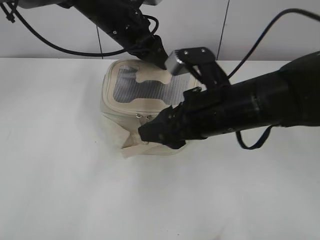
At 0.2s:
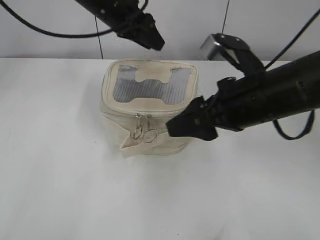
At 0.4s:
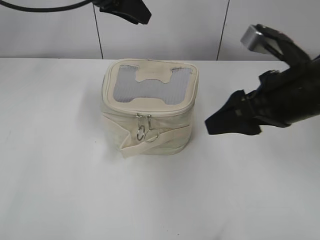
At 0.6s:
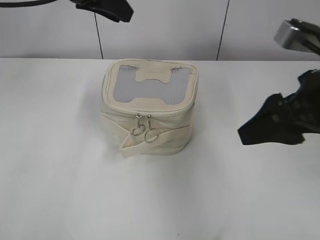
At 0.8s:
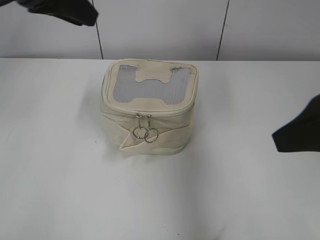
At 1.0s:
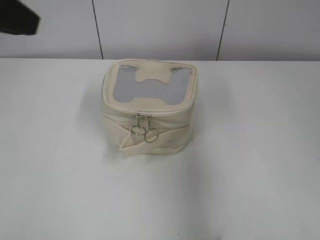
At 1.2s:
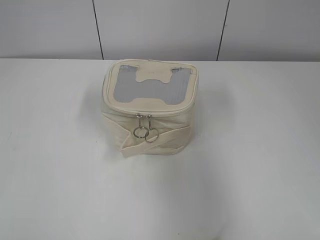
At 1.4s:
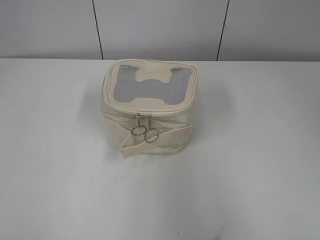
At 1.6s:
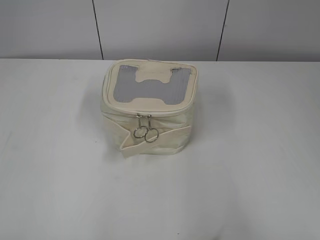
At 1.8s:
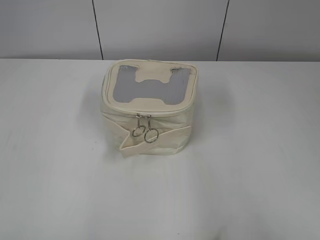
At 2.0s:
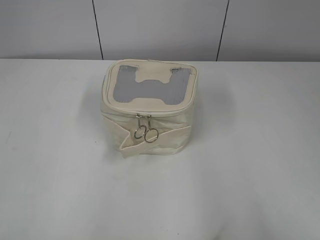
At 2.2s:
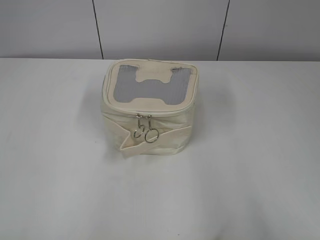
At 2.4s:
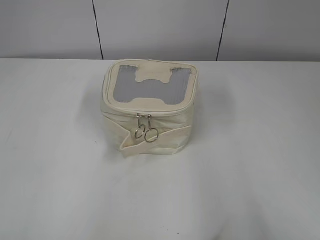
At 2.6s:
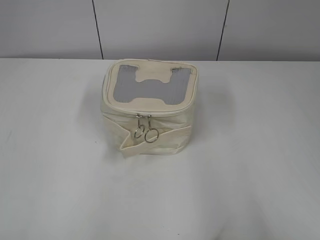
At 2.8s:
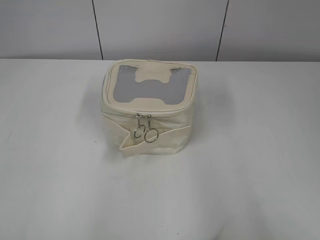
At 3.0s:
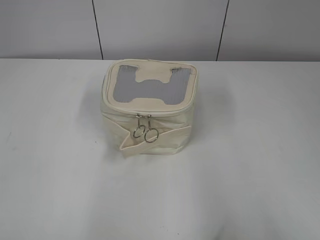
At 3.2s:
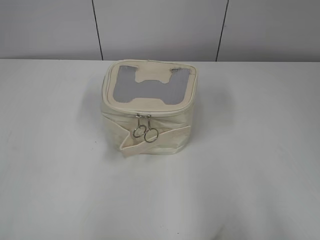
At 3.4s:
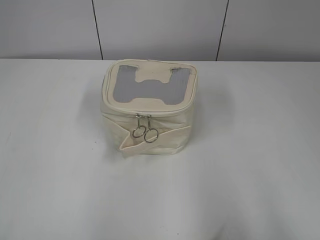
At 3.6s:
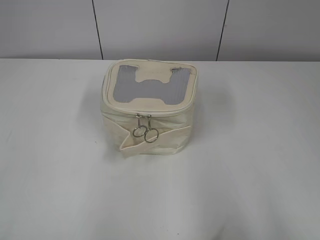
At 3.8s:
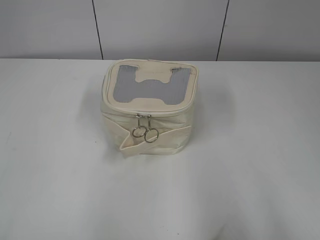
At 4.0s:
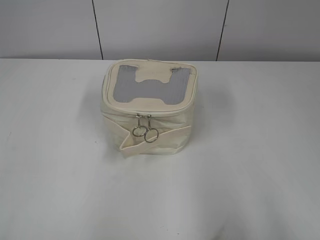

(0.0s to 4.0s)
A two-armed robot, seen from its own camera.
0.0s - 1.4s: The left gripper travels backward and to the left by some 50 cm, while the right gripper shifts some 35 cm backward, to the right and upward.
1.4s - 2.6s: The grippers both shift downward by some 5 cm.

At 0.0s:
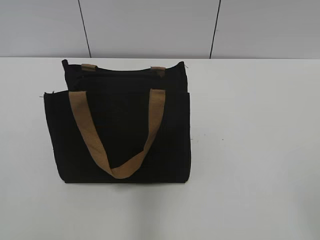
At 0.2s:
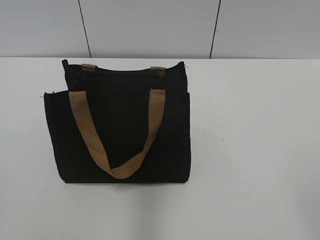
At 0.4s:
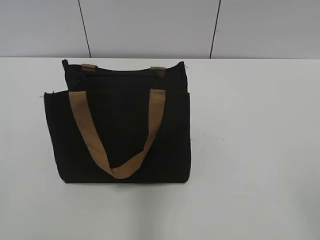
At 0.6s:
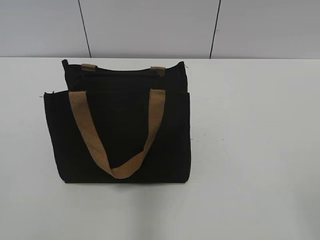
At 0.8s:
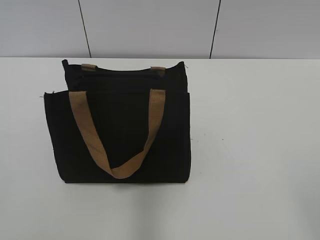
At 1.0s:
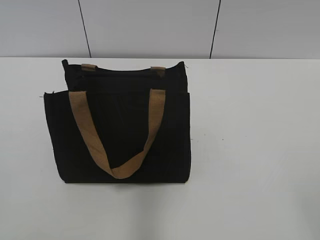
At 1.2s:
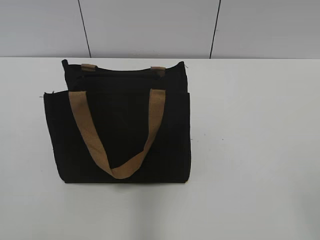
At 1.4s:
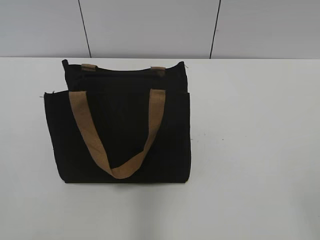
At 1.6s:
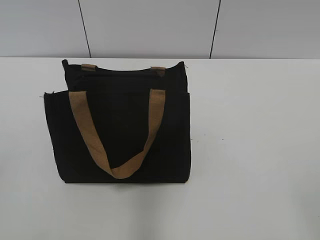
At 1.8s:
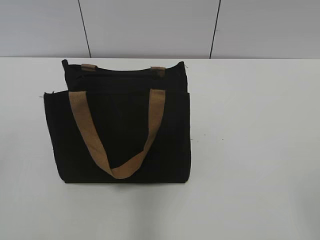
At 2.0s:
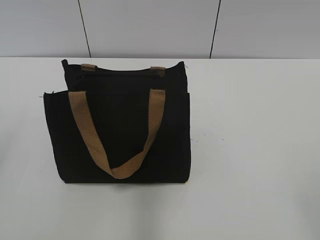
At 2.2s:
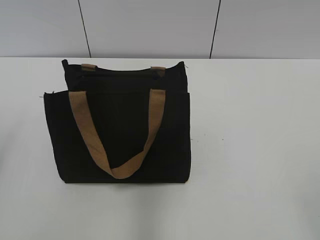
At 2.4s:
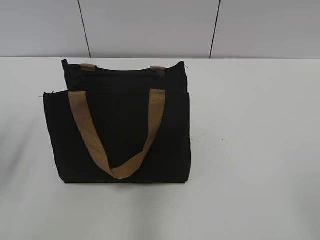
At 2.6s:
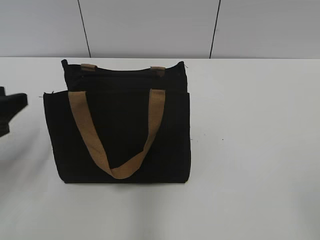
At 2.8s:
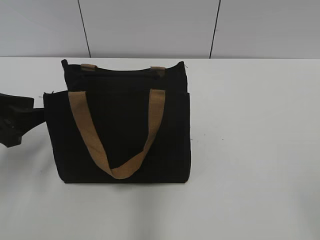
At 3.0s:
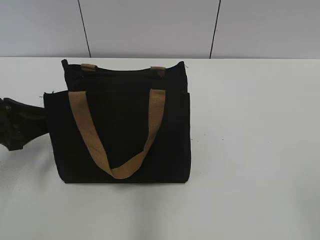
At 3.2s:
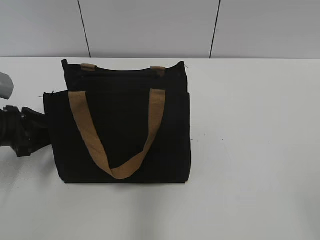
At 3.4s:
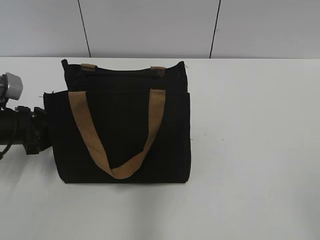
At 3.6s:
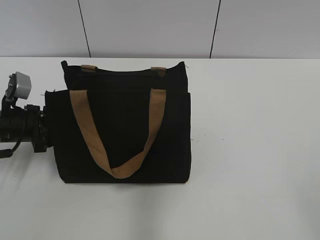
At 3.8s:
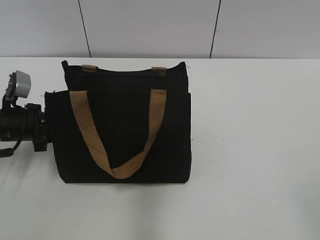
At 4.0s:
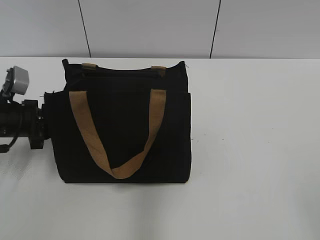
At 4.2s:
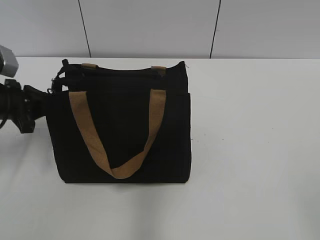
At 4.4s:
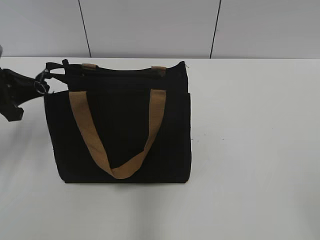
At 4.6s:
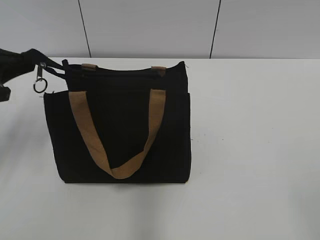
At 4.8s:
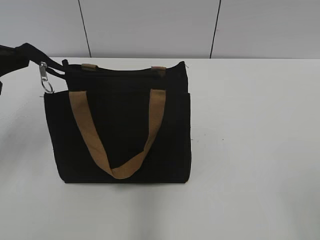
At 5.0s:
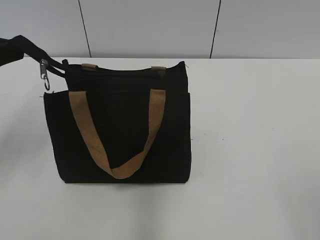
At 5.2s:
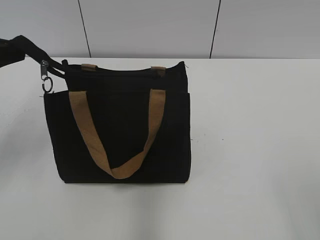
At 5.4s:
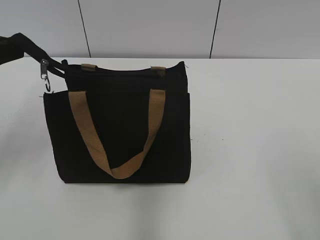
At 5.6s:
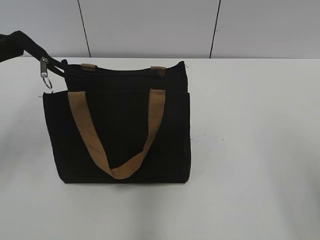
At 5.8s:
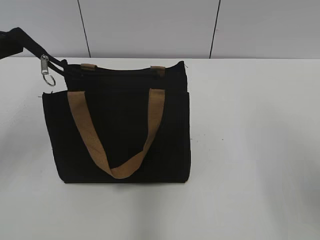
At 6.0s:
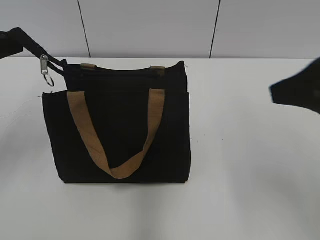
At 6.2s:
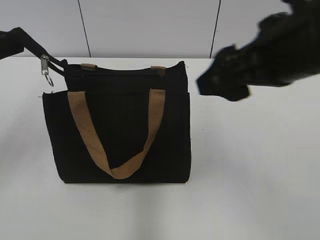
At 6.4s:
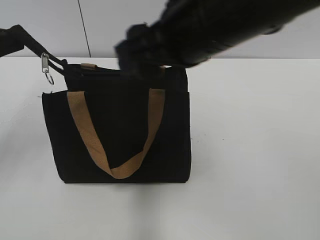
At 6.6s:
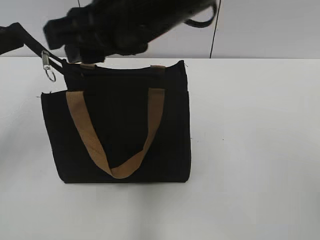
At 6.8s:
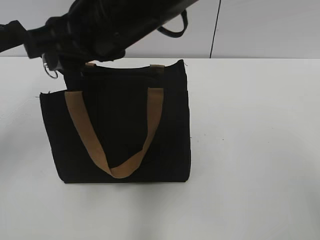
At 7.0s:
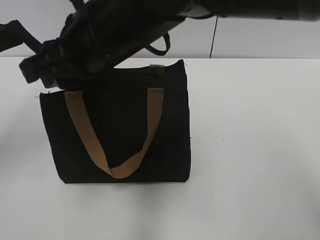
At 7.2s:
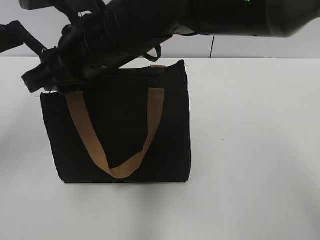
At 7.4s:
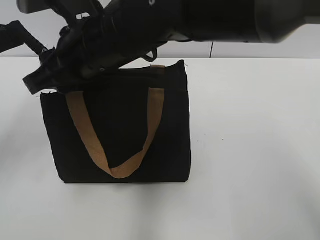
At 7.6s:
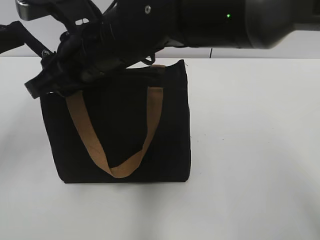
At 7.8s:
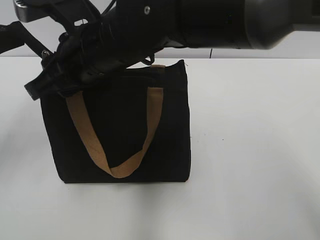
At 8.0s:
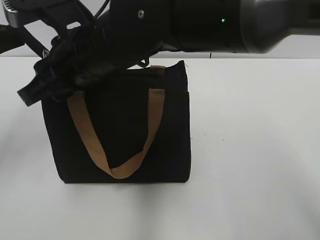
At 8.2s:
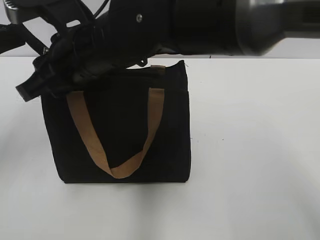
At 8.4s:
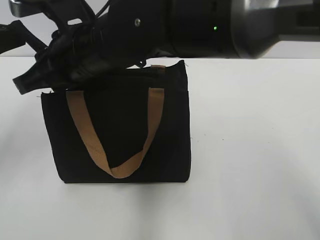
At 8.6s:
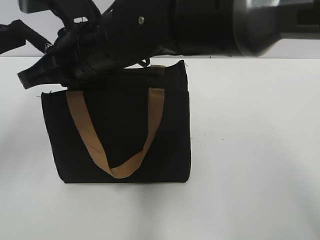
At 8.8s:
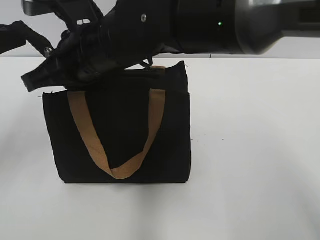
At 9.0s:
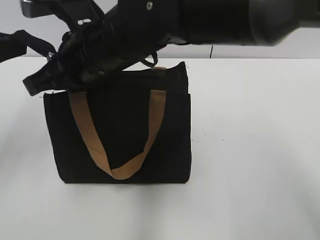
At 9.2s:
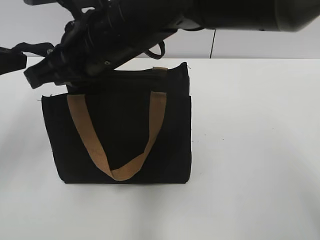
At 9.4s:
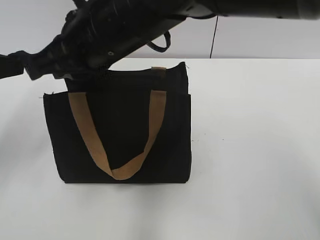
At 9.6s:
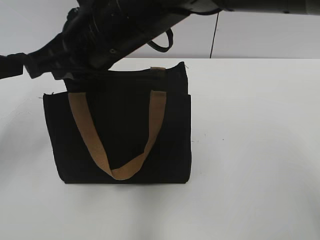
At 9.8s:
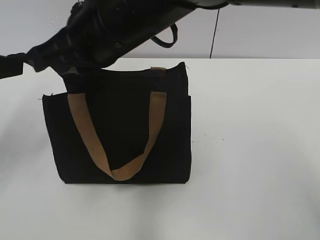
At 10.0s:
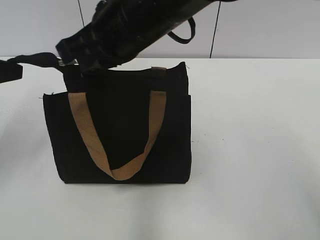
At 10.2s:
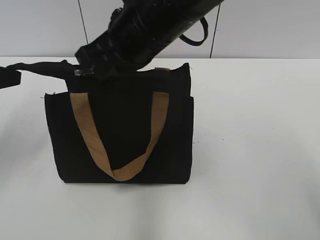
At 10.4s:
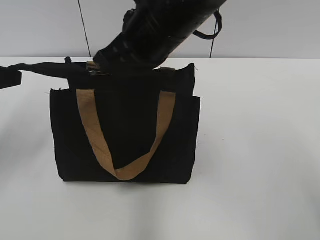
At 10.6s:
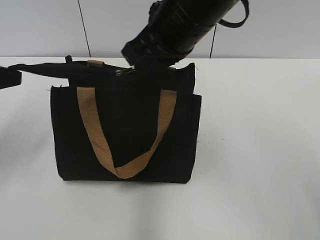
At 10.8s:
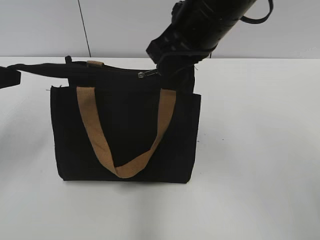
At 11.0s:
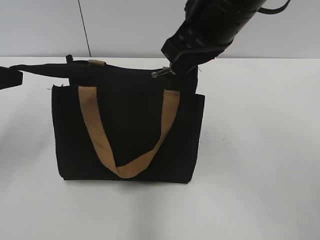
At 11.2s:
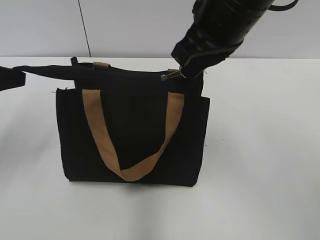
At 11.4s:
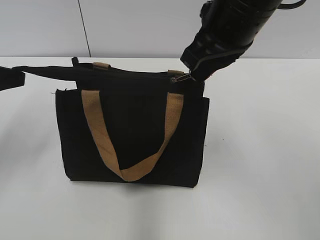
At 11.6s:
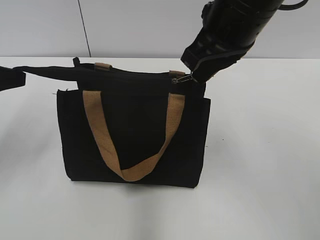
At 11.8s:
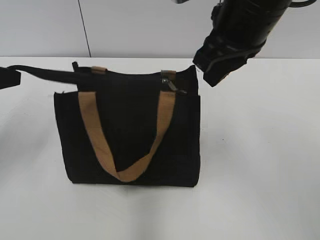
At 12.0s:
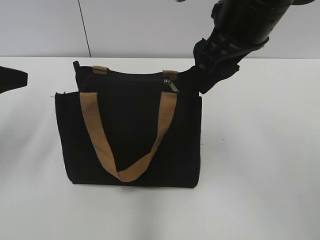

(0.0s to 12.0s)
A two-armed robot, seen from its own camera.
Step, 0.0s - 11.6s: Zip up the bag with your right hand.
1.6s - 3.0s: The left gripper goes some 30 cm forward and downward.
3.0s - 4.4s: The left gripper moves roughly 5 cm downward and comes back, and closes.
4.4s - 6.0s: The right gripper travels forward by about 20 cm. Meanwhile the left gripper goes approximately 10 cm upward.
6.0s - 7.6s: The right gripper is displaced to the left by some 30 cm, and closes its fingers.
7.6s - 9.0s: The right gripper closes up.
9.0s - 10.4s: The right gripper is displaced to the right by roughly 5 cm.
10.4s - 12.0s: The right gripper is displaced to the right by approximately 10 cm, and opens. Meanwhile the left gripper opens.

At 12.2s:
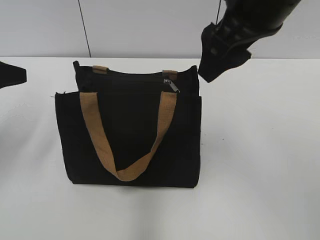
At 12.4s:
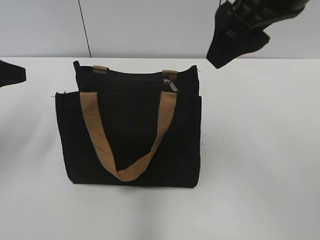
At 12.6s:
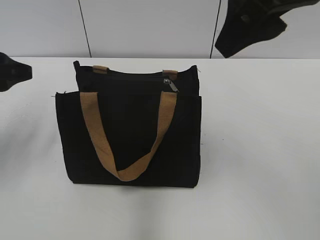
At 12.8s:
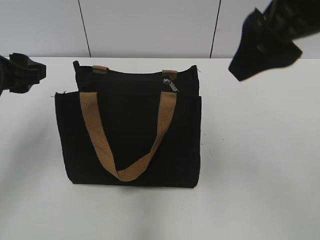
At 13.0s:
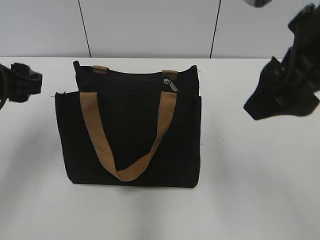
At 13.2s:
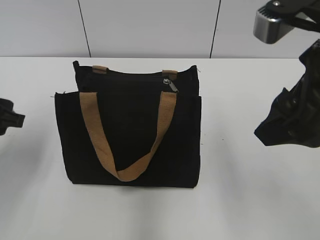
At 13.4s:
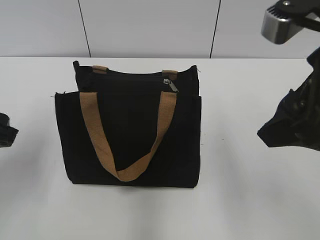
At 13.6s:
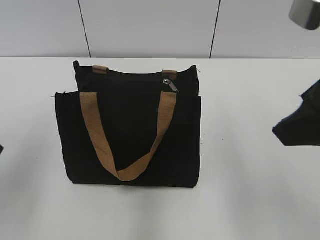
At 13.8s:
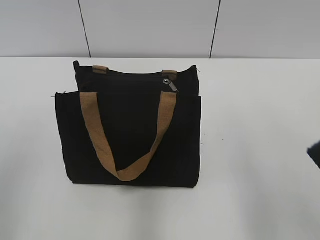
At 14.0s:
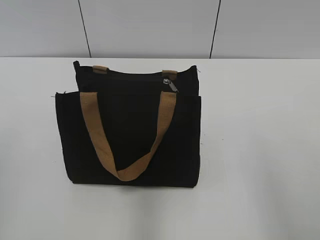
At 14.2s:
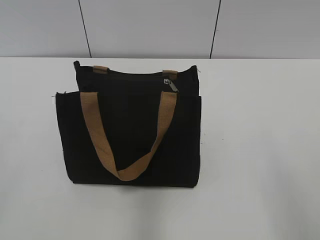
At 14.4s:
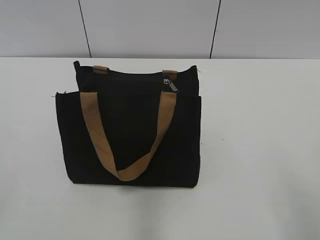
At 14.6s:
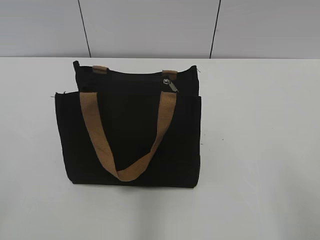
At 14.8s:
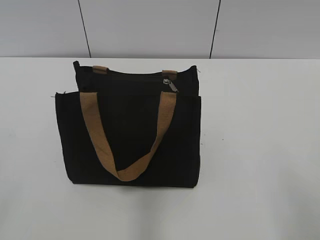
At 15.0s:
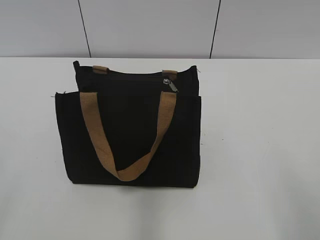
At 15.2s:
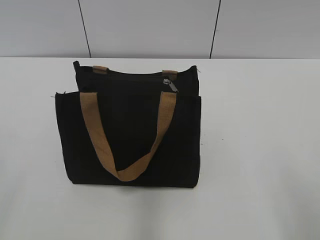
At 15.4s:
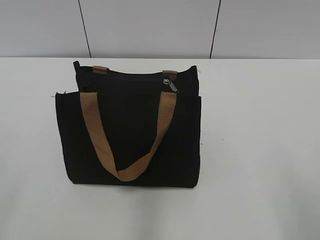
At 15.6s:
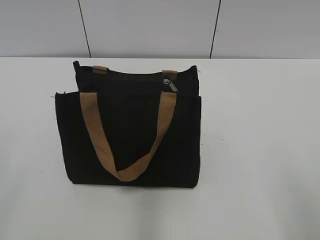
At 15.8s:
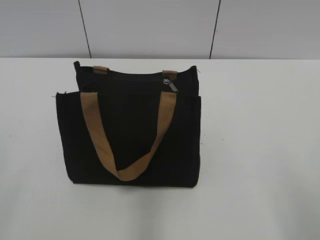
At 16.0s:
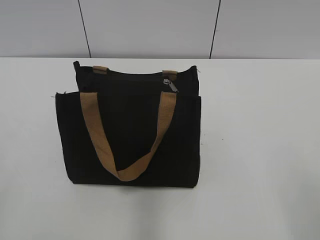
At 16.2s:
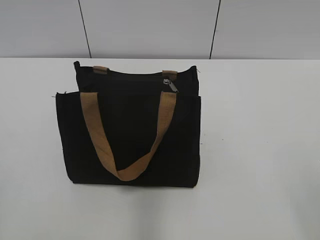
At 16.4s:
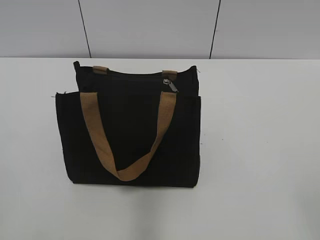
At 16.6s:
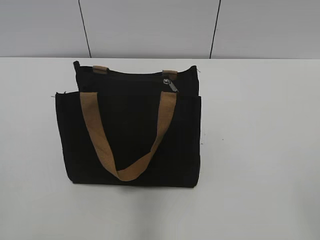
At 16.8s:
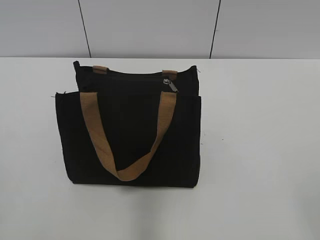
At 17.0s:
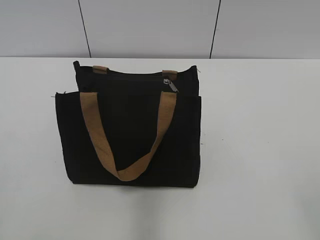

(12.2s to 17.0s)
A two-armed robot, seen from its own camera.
12.2s - 13.8s: The right gripper heads backward and to the right, covering approximately 15 cm; the left gripper heads backward, covering approximately 15 cm.

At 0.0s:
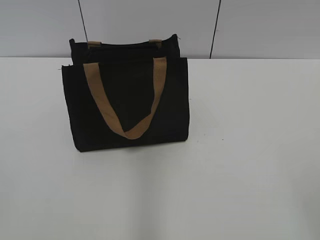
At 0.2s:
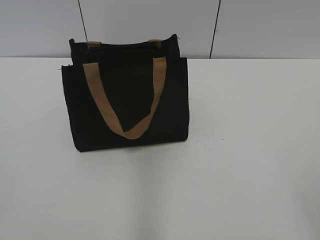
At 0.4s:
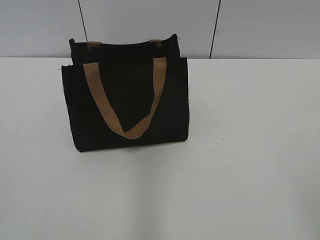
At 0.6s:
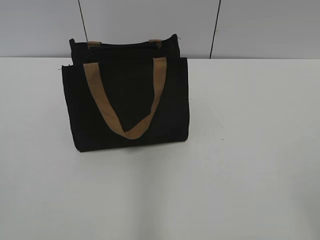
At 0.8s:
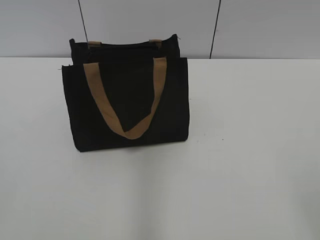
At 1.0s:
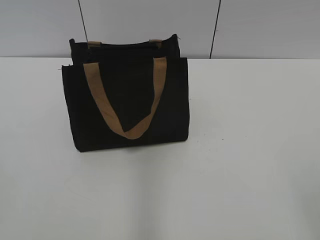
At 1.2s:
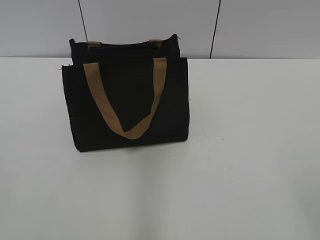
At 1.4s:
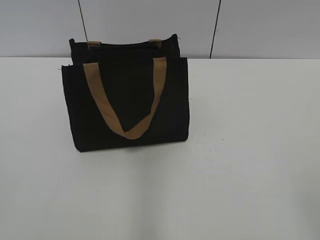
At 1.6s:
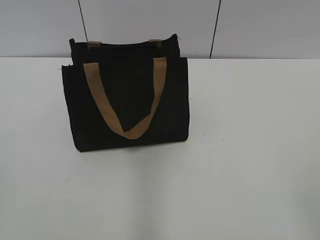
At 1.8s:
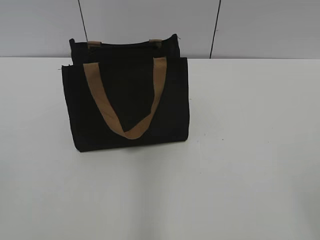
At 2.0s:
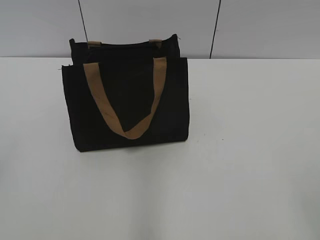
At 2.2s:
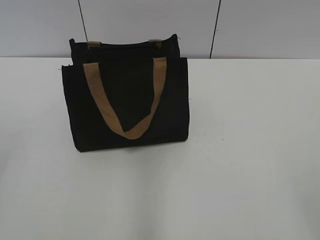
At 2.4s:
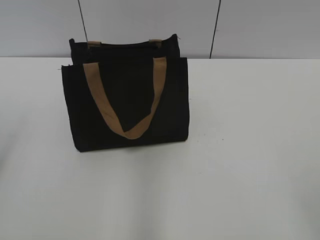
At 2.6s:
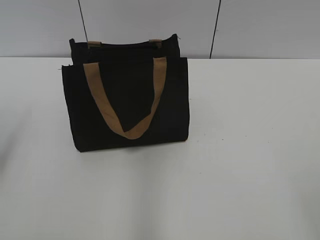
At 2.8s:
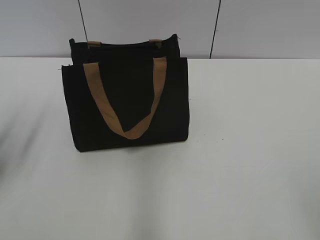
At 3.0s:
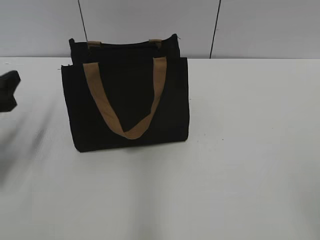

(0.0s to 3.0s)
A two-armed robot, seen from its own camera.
1.6s - 3.0s: The left gripper goes roughly 25 cm forward.
